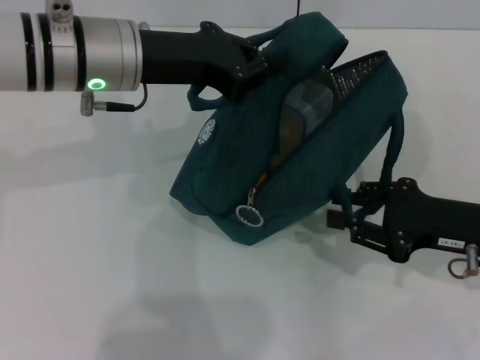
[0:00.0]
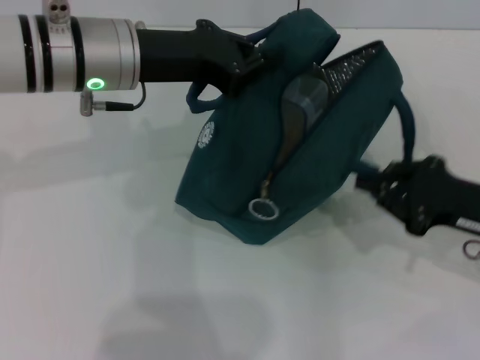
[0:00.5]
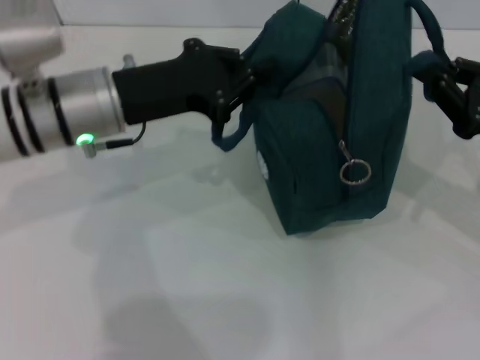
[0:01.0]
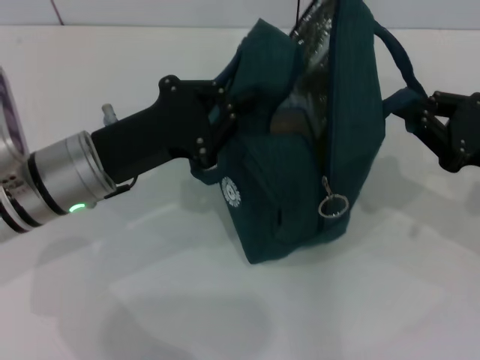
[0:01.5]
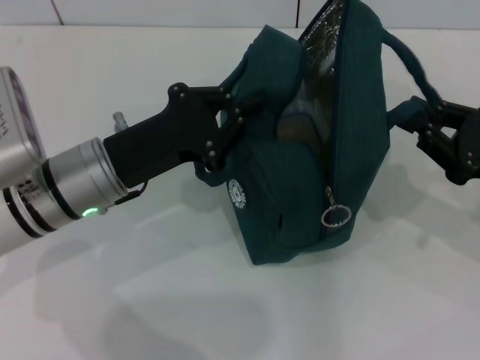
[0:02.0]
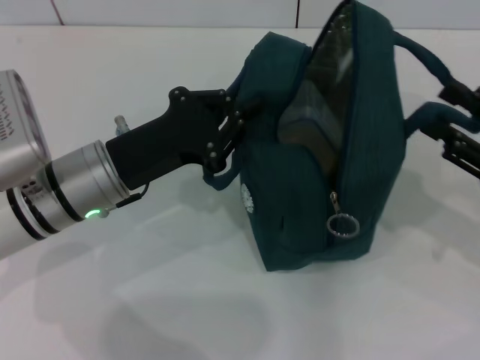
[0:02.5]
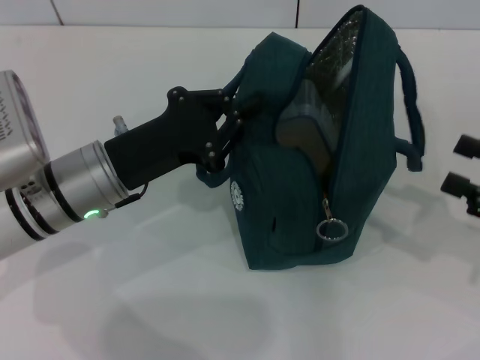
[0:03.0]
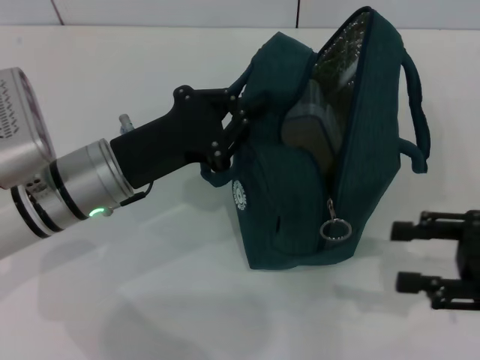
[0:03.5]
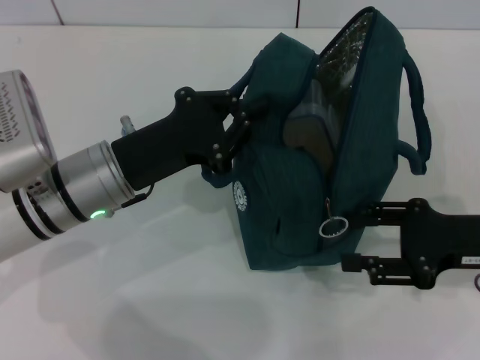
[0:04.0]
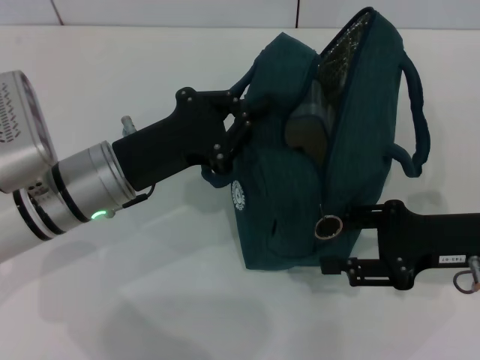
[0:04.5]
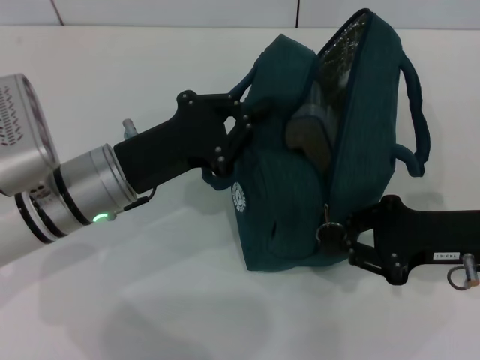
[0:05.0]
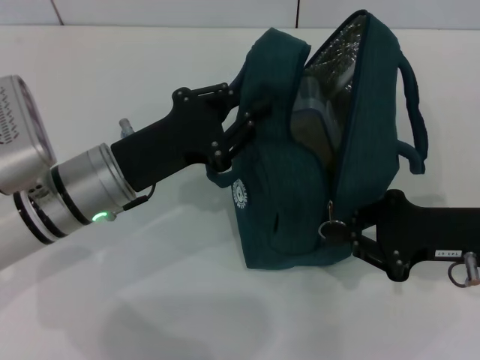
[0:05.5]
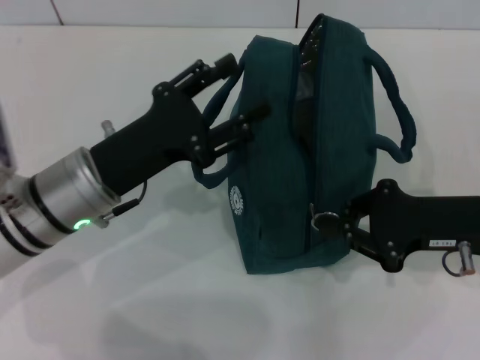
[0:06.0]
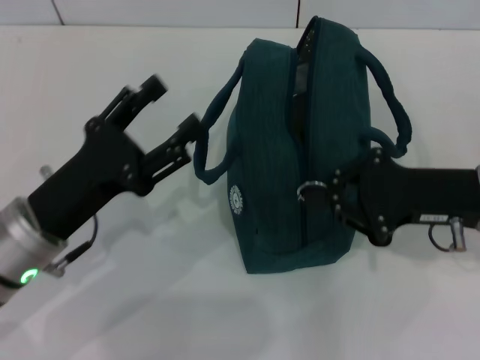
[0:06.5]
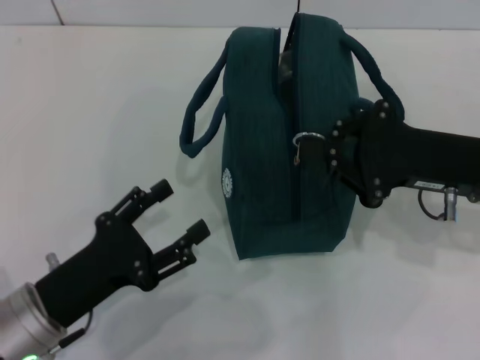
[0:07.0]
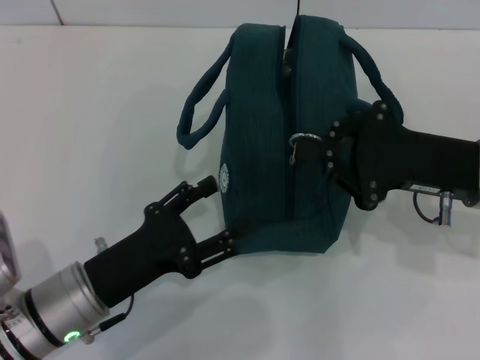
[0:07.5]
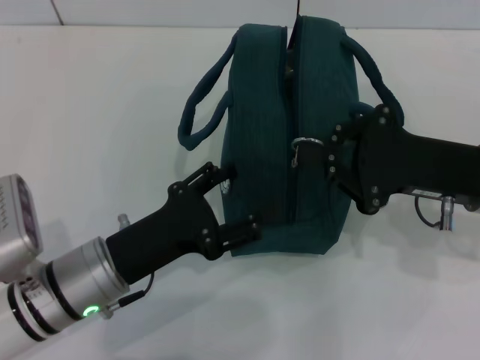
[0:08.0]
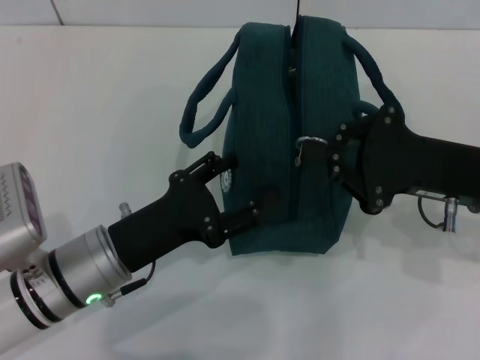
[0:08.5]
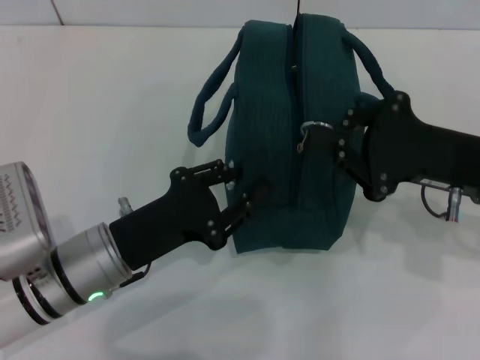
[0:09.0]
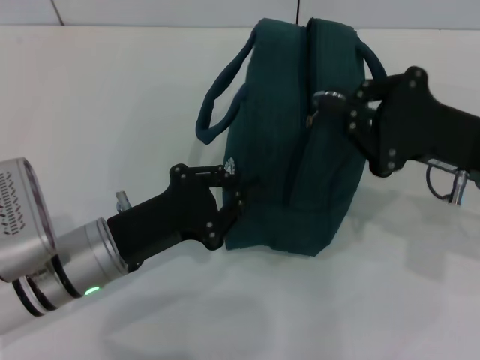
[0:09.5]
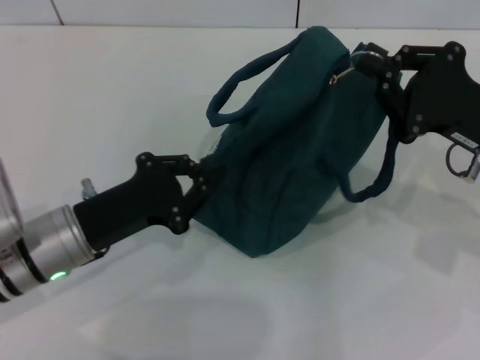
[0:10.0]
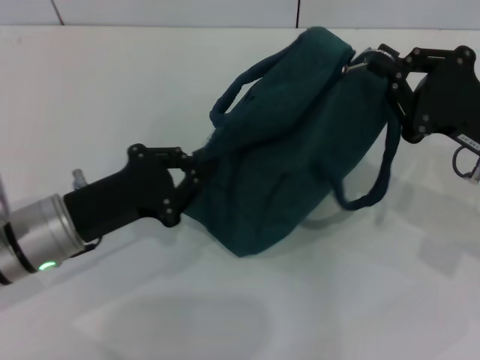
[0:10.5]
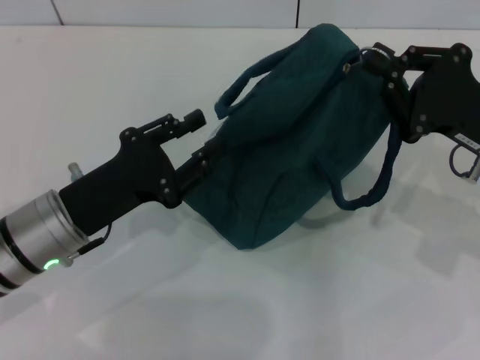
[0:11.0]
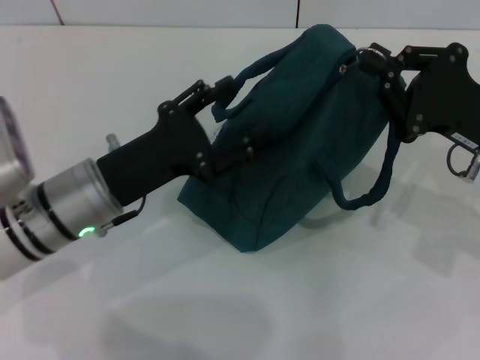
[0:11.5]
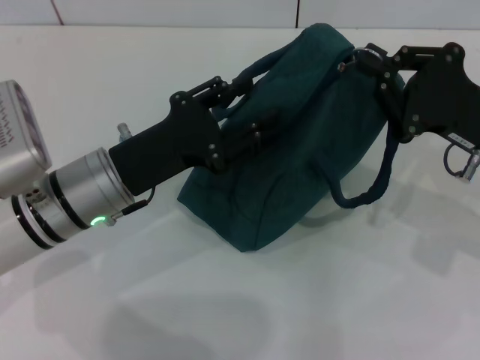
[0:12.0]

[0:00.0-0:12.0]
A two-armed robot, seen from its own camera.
Step, 0:00.0 to 0:02.5: Hold the lunch bag with your right hand.
Step, 0:03.0 to 0:06.0: Hold the lunch bag with your left hand.
0:00.0 to 0:02.0: The left gripper moves downward and backward, approximately 10 cm. Meanwhile the right gripper closes up.
0:02.0 to 0:04.0: The right gripper travels to the right and back again, about 5 cm each way, and opens up.
0:04.0 to 0:06.0: The left gripper opens its fingers; the right gripper closes up.
0:06.0 to 0:08.0: The left gripper shifts some 5 cm backward.
0:08.0 to 0:10.0: The left gripper closes its fingers.
0:10.0 to 0:12.0: The left gripper moves roughly 5 cm, and opens.

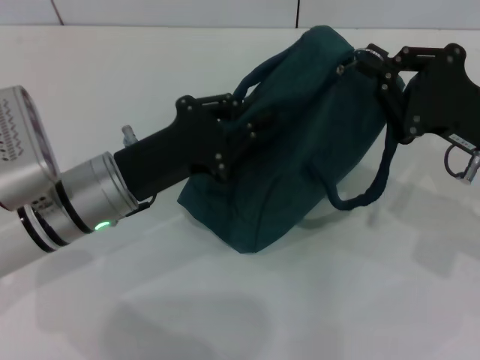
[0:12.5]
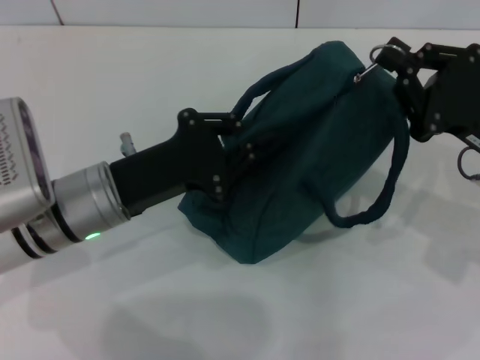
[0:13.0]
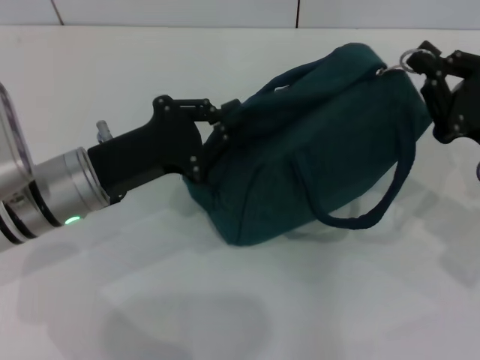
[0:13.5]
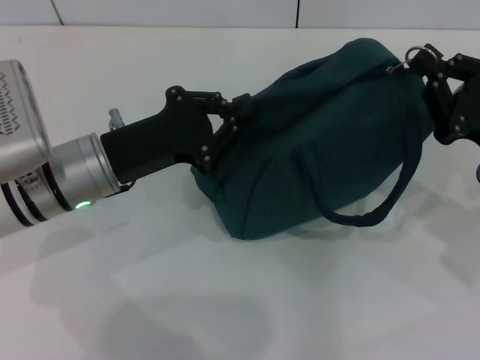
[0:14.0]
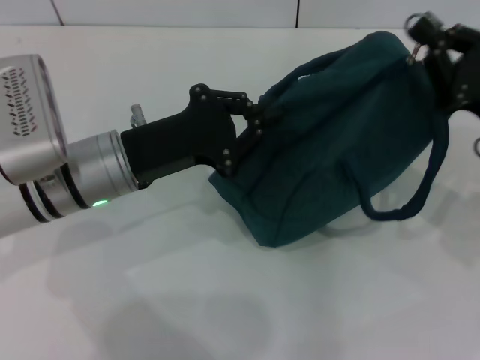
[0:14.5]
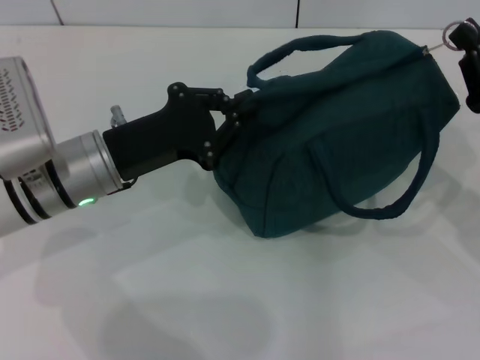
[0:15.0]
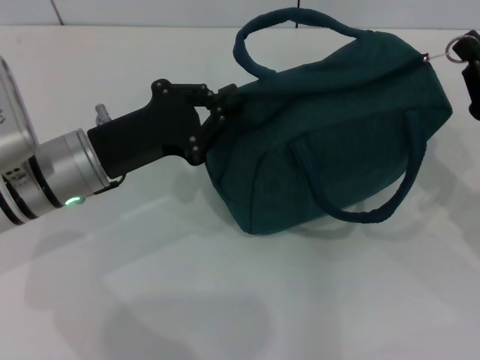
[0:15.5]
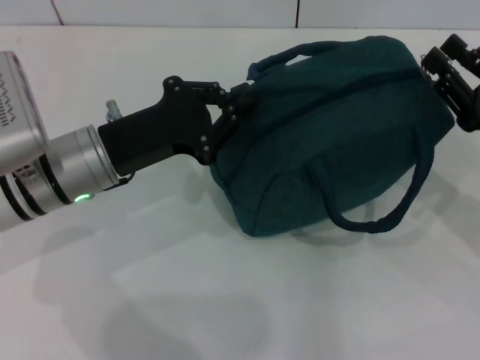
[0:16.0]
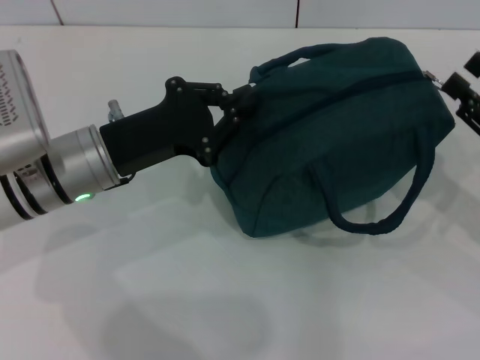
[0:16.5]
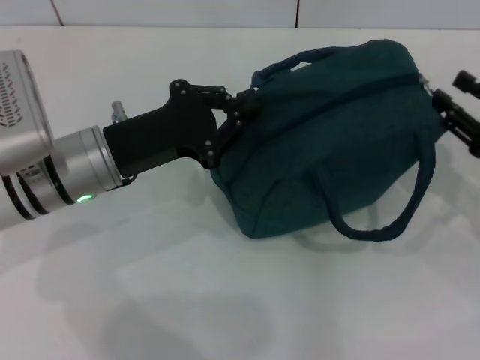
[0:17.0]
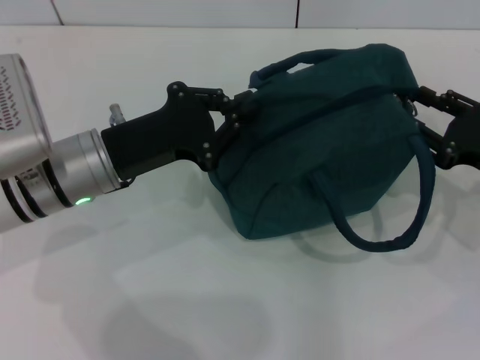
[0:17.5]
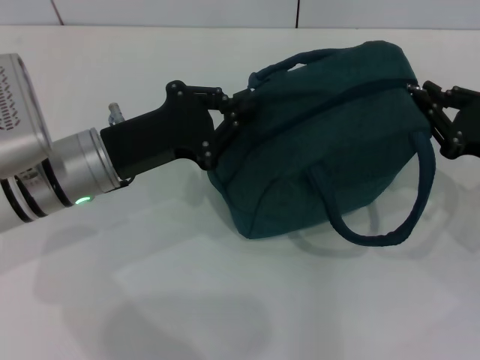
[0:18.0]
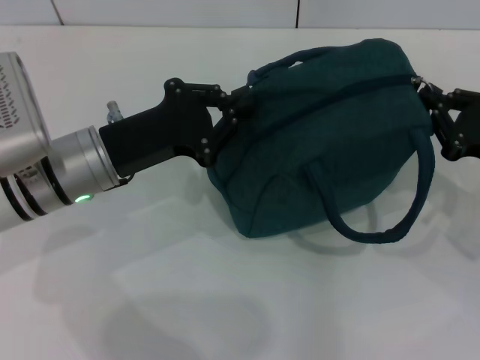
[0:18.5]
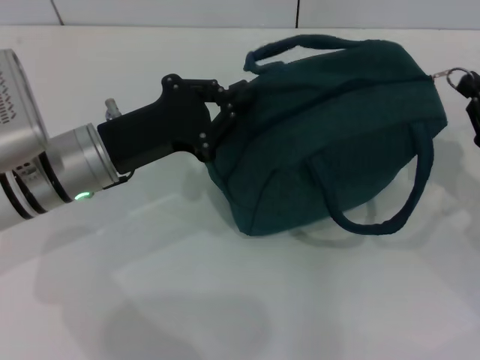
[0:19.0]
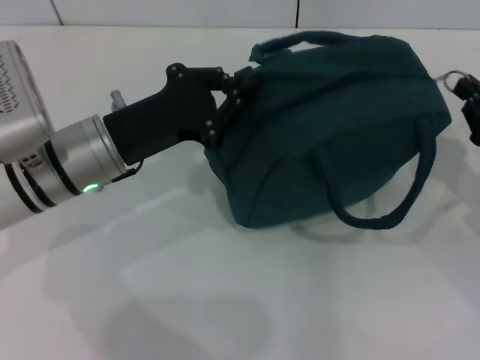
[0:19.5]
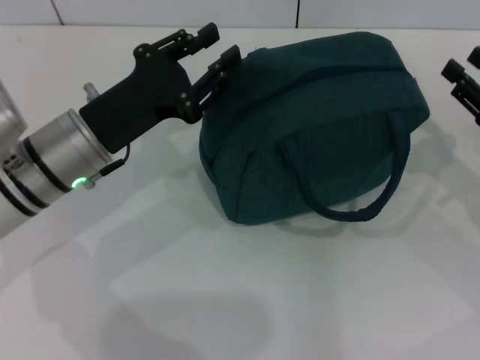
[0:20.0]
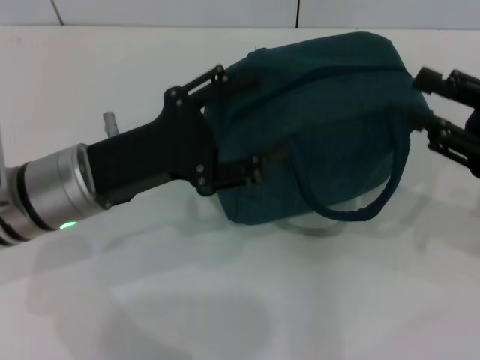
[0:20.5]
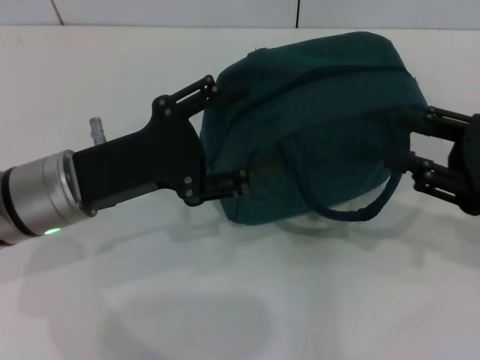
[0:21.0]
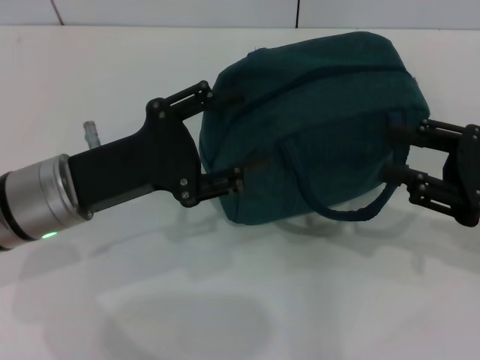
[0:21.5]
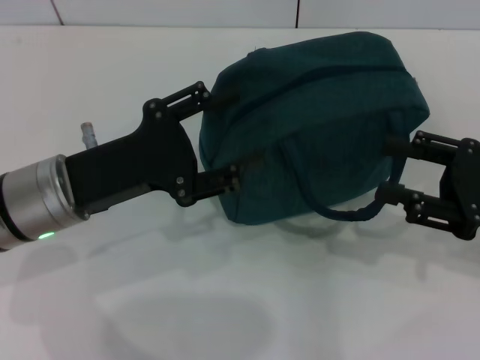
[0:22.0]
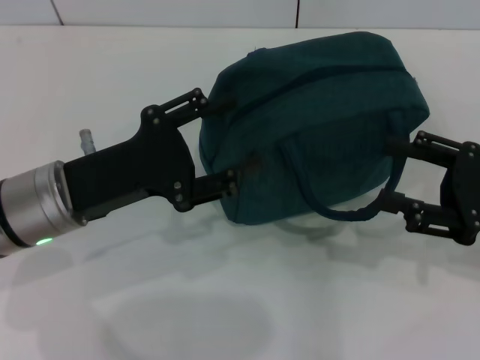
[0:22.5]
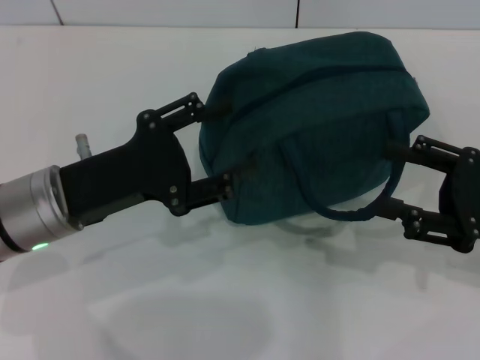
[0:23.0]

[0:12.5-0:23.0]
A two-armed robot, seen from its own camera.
Step, 0:12.5 to 0:19.5: Zip up the lunch bag with your right hand.
0:12.5 to 0:14.5: The left gripper closes.
0:14.5 to 0:16.5: The right gripper moves to the right, some 5 cm, and opens its fingers.
0:16.5 to 0:19.0: The right gripper closes.
0:19.0 to 0:21.0: The right gripper shifts by some 5 cm, and opens up; the left gripper opens.
0:21.0 to 0:23.0: The grippers make only small movements.

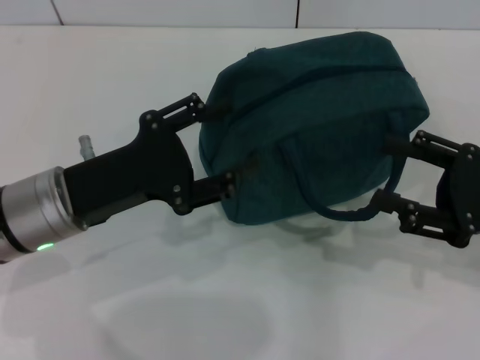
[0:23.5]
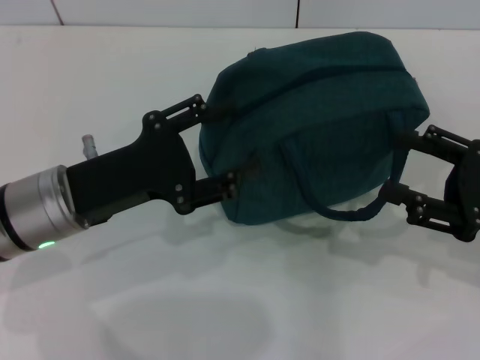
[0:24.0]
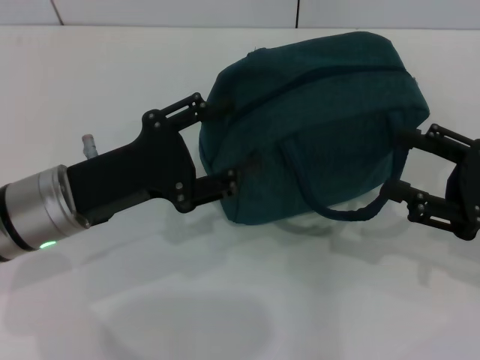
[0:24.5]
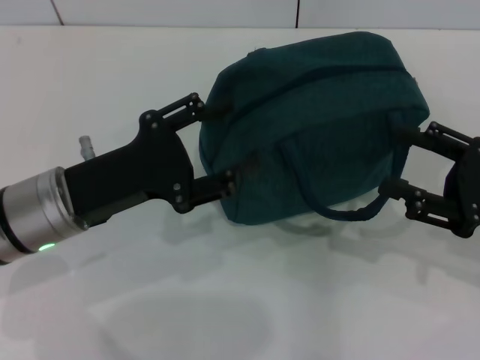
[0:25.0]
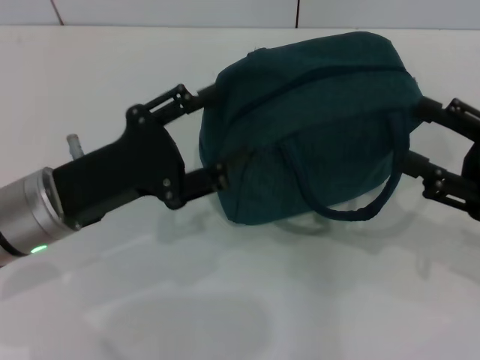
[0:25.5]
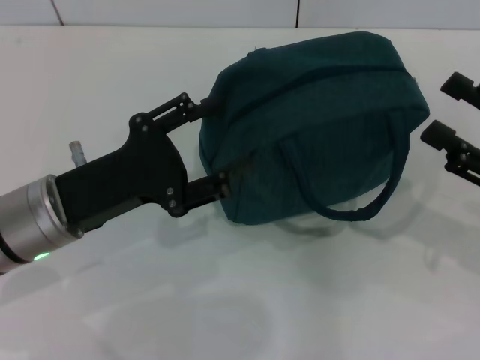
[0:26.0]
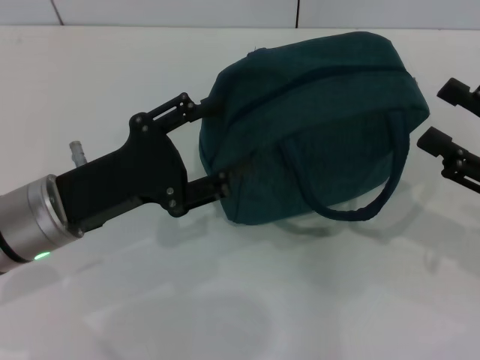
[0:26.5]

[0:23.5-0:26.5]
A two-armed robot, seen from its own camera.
0:23.5 to 0:25.0: Both grippers stay put.
0:25.0 to 0:26.5: The grippers move only a little.
